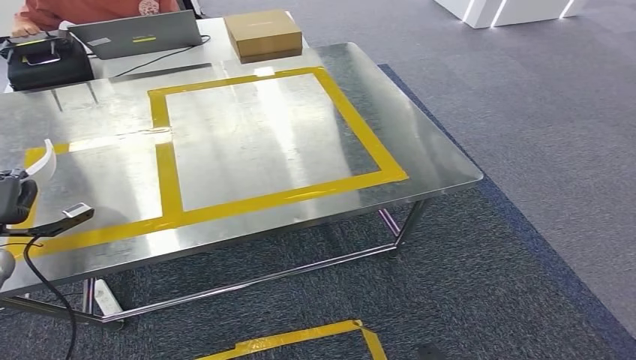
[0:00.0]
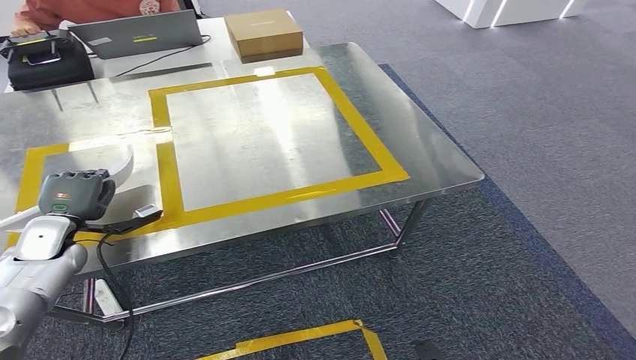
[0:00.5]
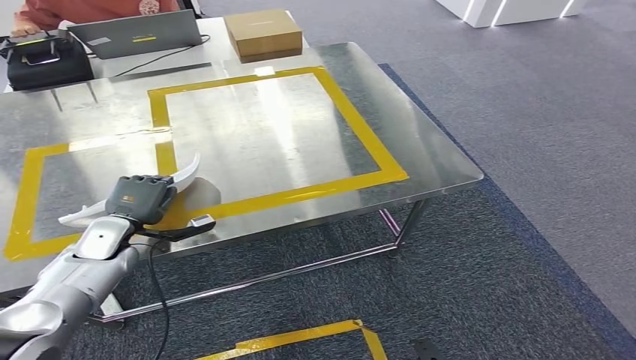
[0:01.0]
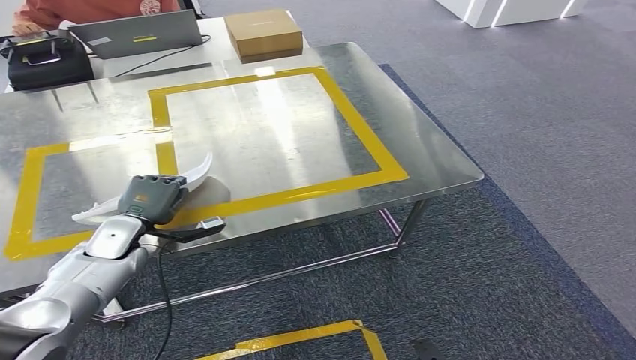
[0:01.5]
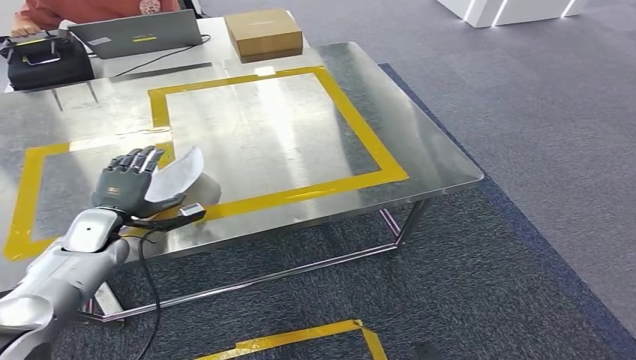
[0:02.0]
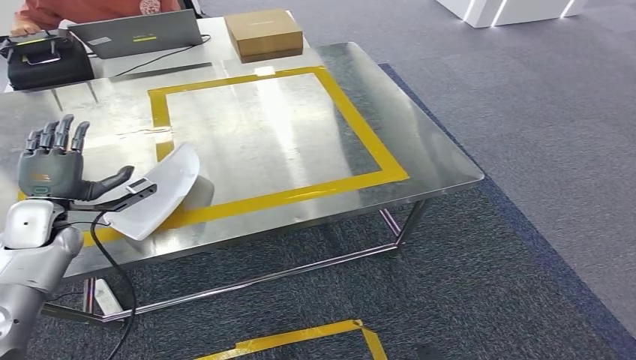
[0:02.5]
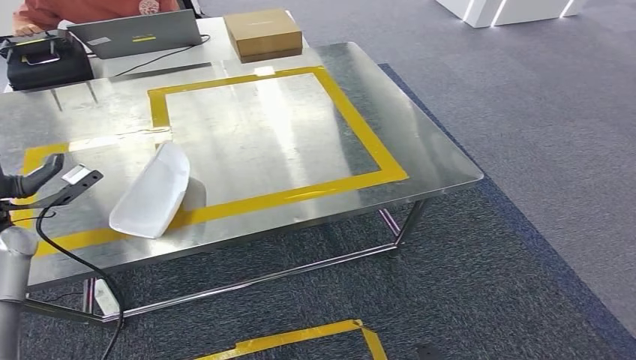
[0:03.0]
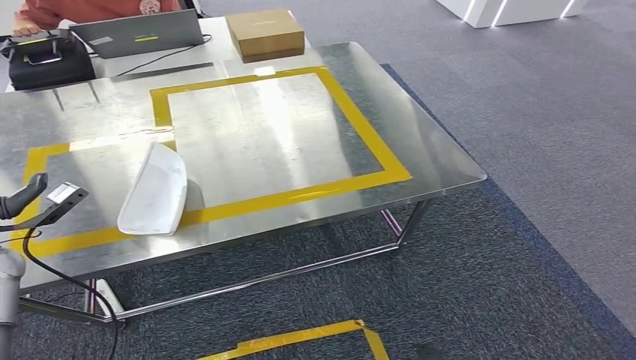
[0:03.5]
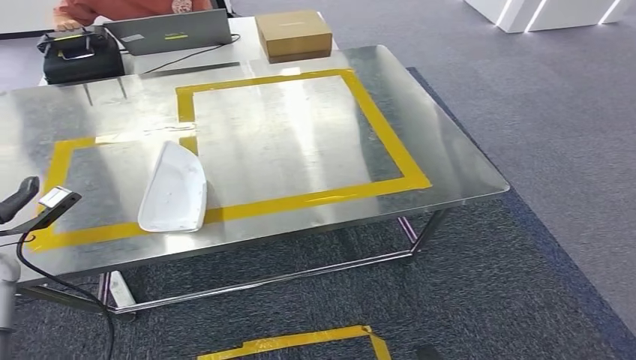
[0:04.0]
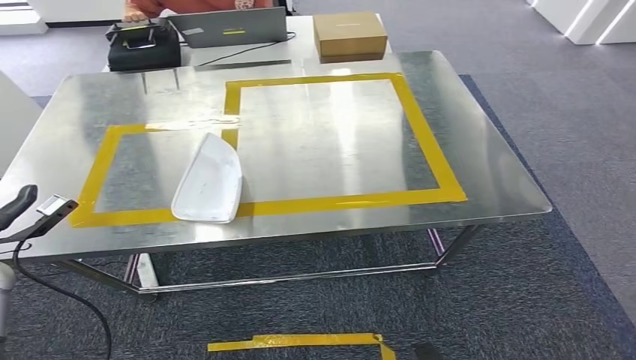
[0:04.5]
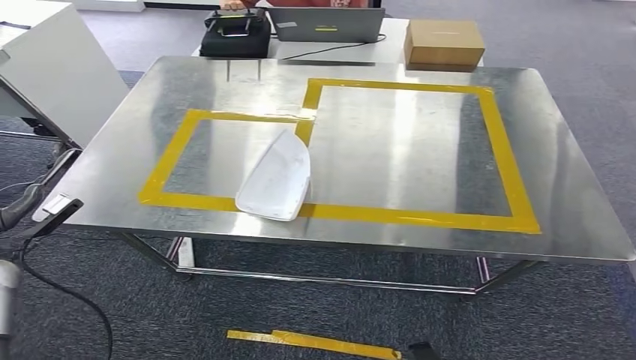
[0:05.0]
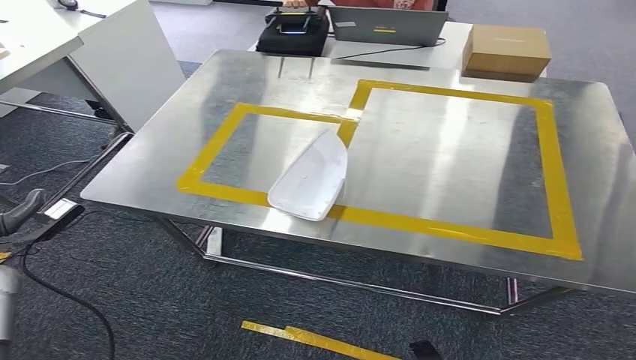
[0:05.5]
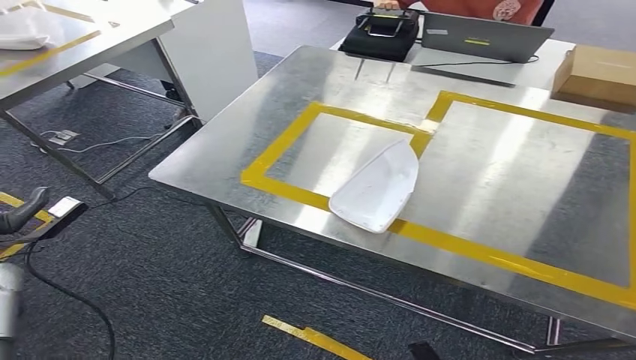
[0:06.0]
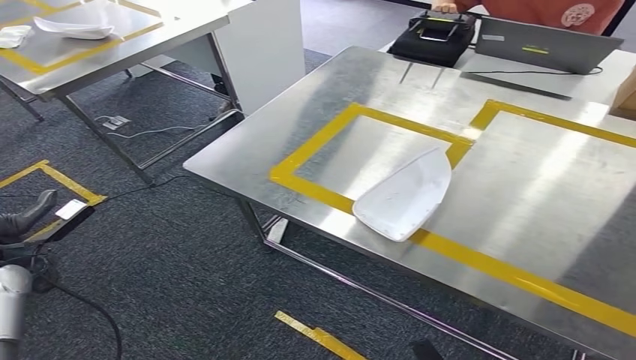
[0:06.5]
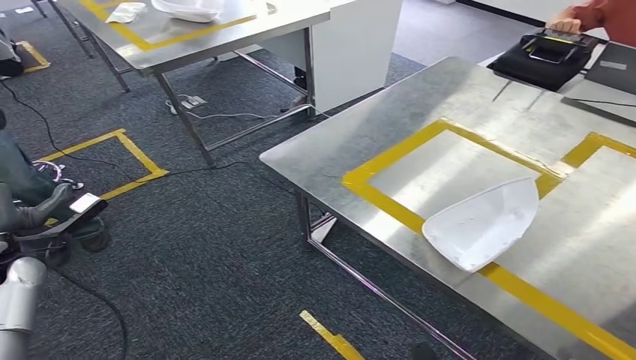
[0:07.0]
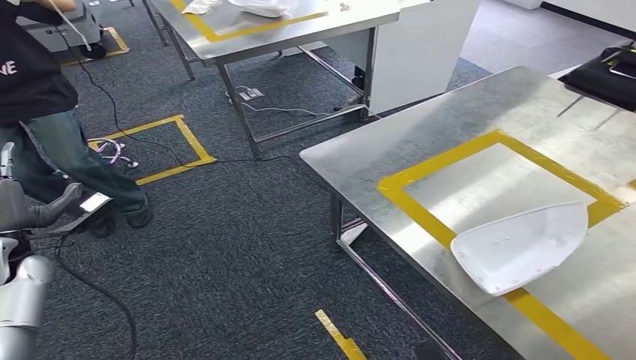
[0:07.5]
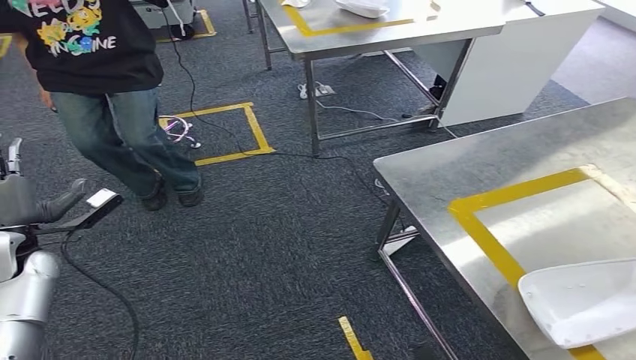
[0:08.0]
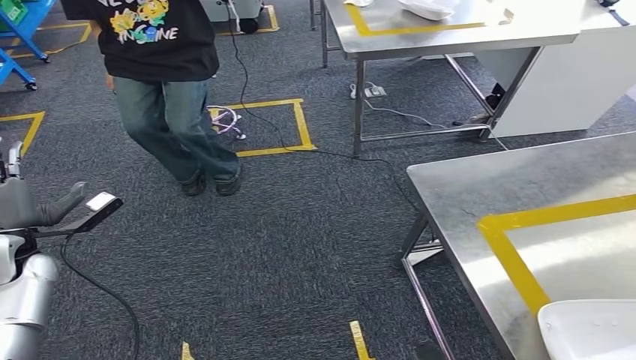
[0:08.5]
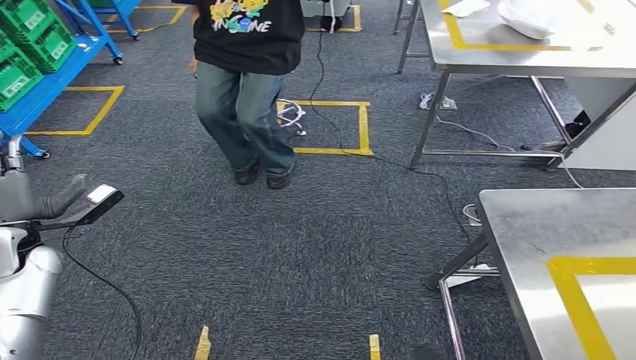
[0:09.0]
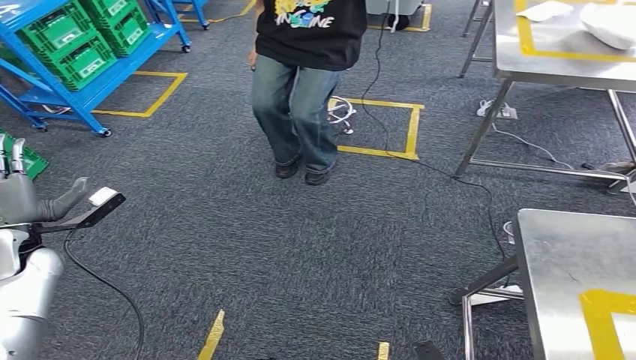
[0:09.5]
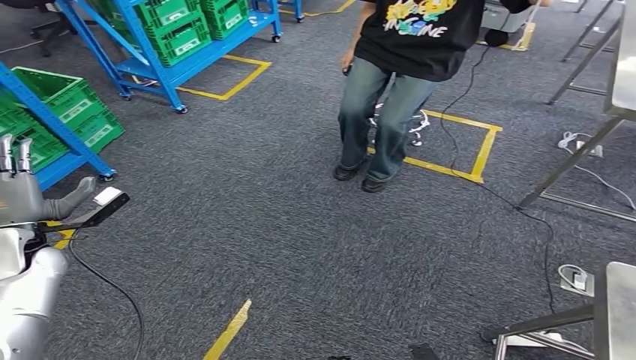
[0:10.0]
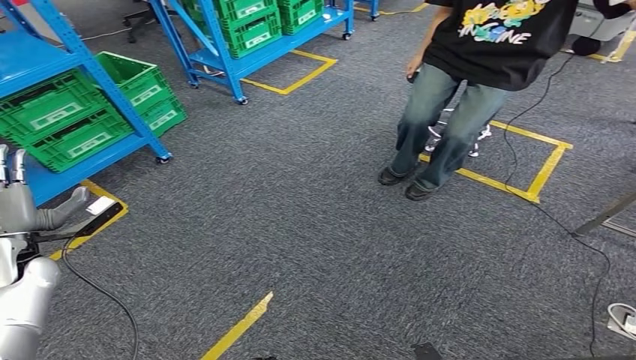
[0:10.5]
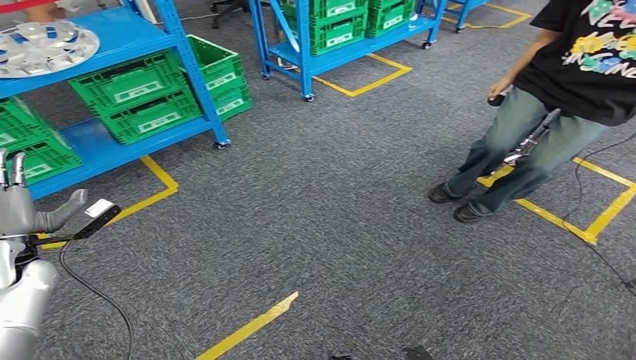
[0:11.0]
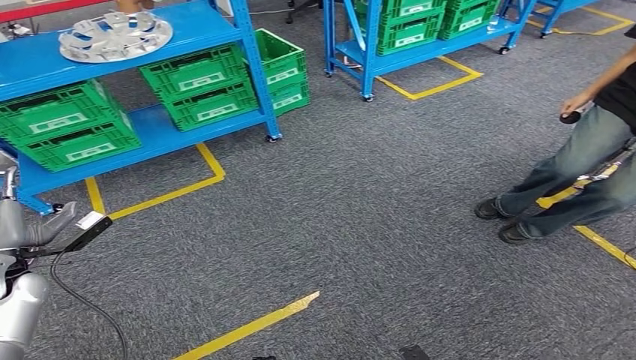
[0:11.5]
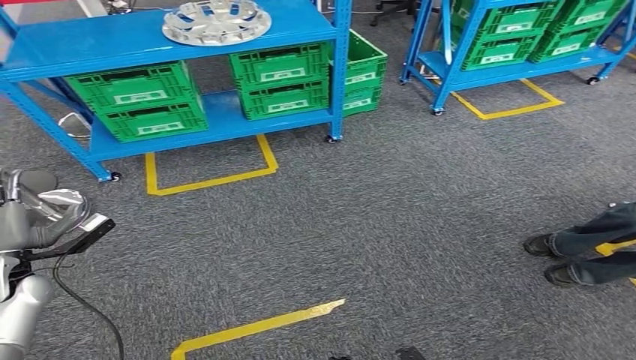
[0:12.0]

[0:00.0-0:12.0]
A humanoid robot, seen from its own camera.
Step, 0:00.0 to 0:05.5: Insert the small parts into the corresponding holes on the workbench.
0:00.0 to 0:02.0: The left hand shifts approximately 15 cm to the right.

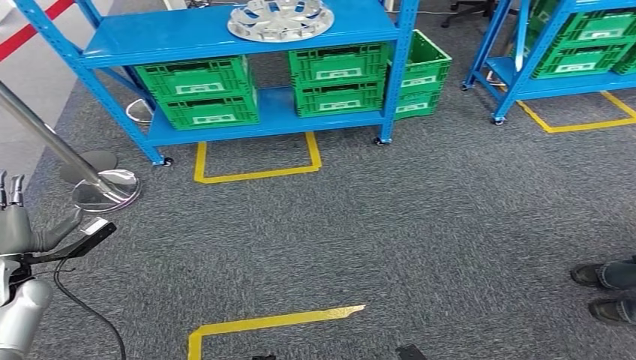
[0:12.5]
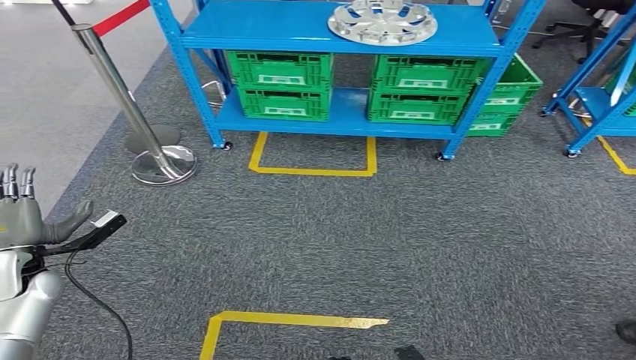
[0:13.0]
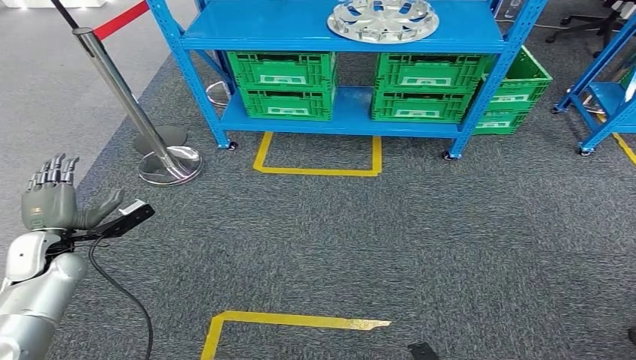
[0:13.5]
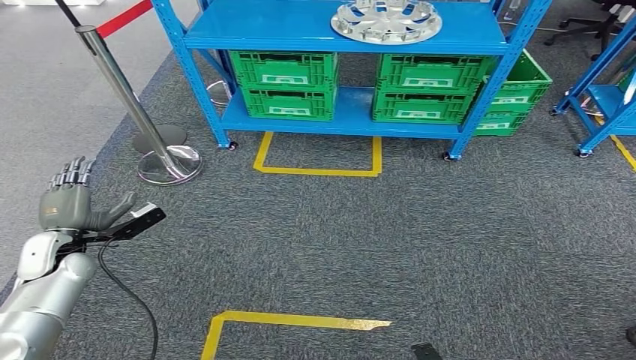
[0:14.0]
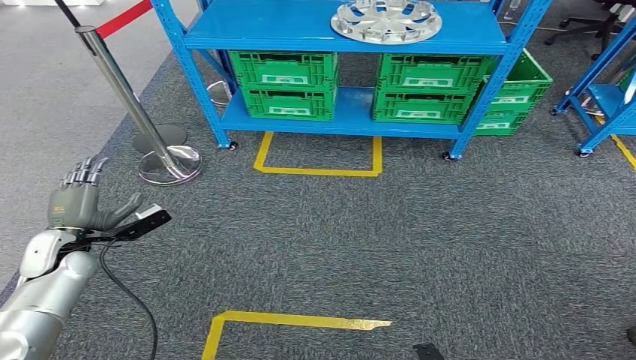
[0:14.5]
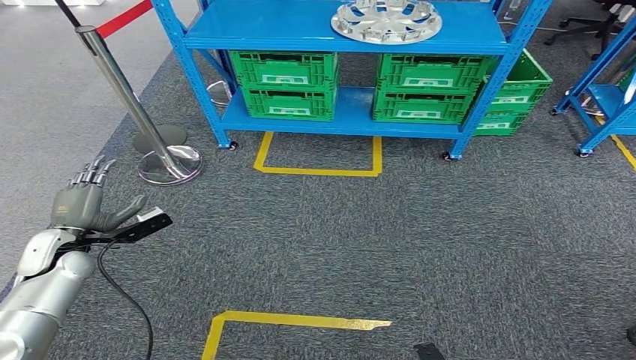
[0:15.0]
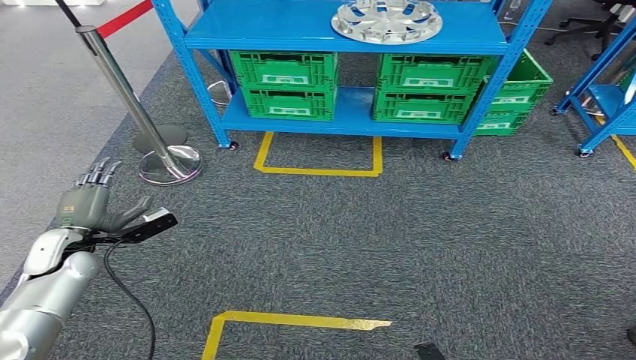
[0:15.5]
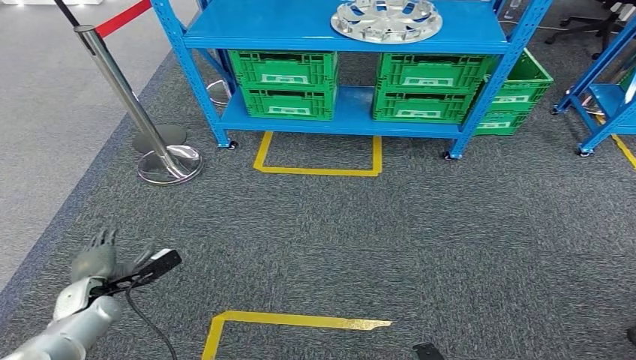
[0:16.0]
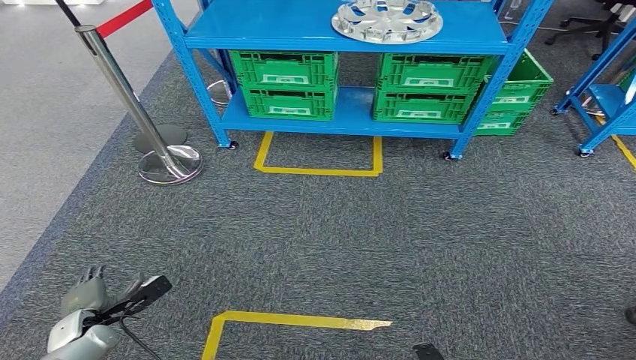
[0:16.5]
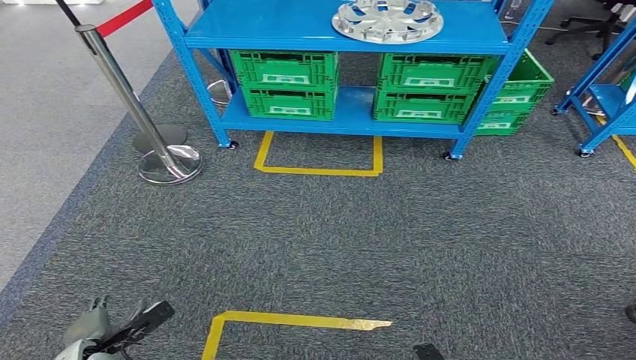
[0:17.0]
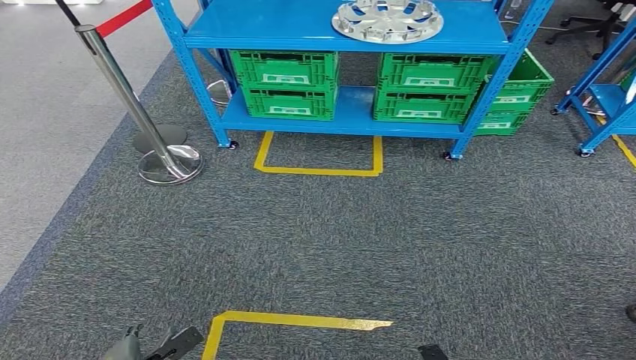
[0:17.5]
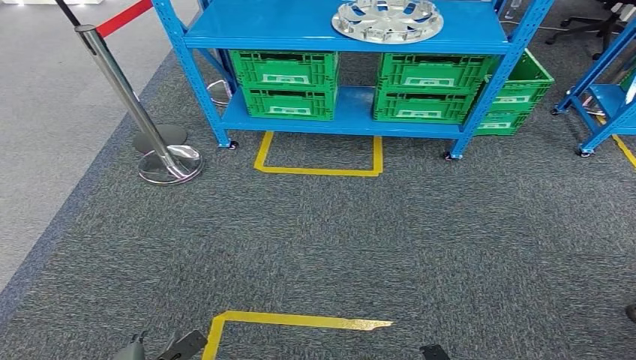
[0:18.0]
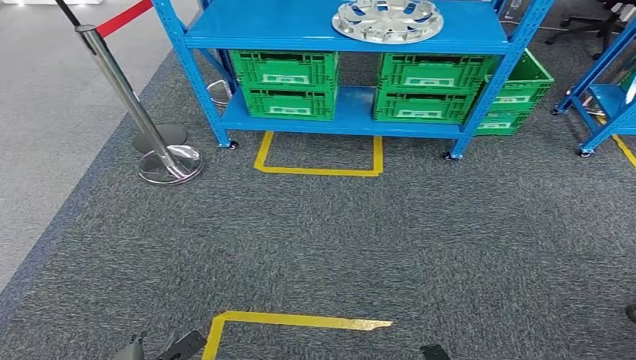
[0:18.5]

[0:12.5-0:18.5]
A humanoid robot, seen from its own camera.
Step, 0:12.5 to 0:18.0: Move to the initial position at the workbench.
0:14.5 to 0:16.5: The left hand heads downward and backward, covering some 20 cm.
0:16.5 to 0:18.5: The left hand goes approximately 15 cm backward, to the right and downward.
